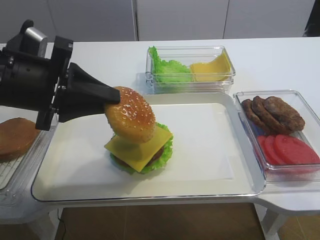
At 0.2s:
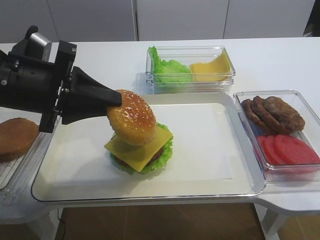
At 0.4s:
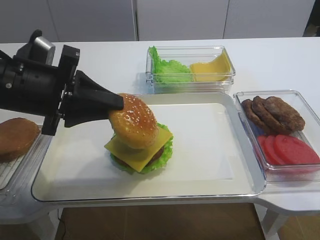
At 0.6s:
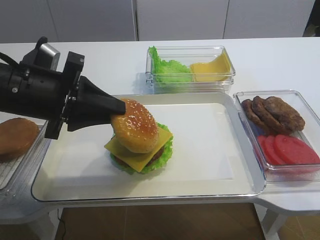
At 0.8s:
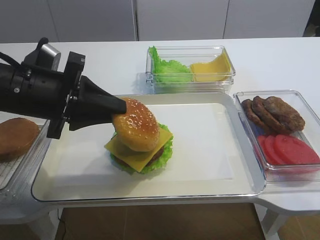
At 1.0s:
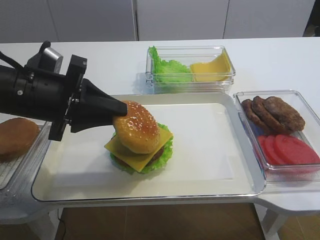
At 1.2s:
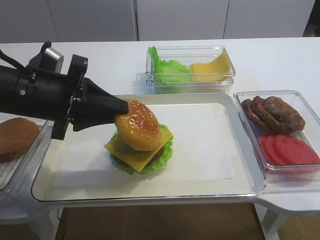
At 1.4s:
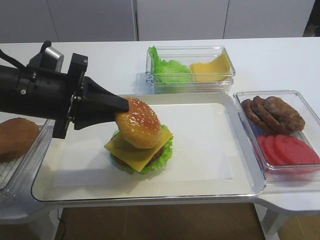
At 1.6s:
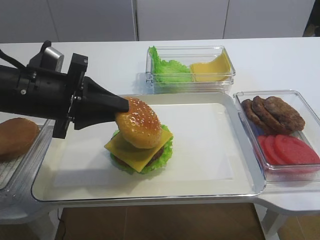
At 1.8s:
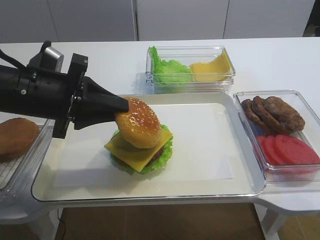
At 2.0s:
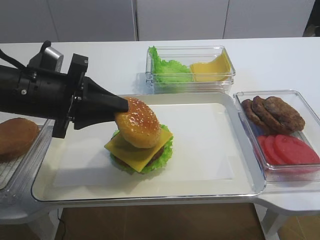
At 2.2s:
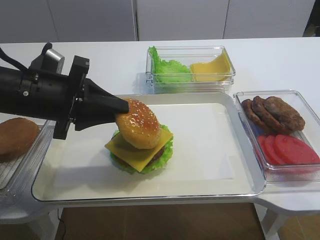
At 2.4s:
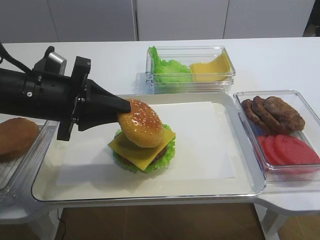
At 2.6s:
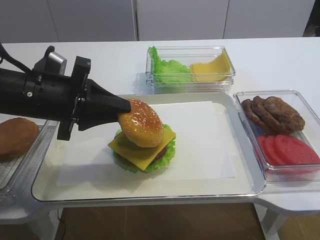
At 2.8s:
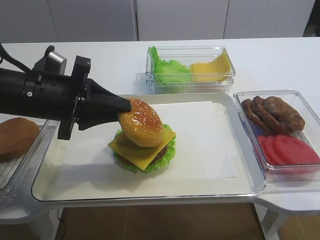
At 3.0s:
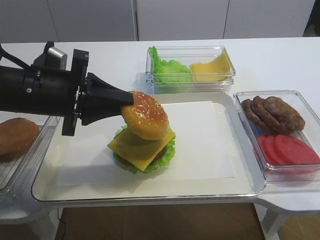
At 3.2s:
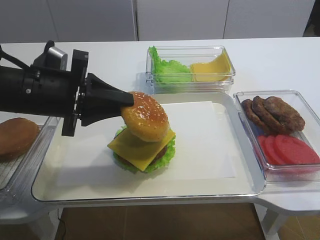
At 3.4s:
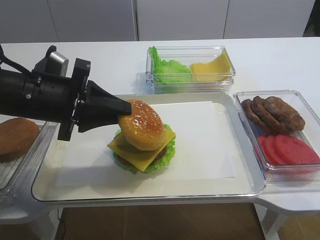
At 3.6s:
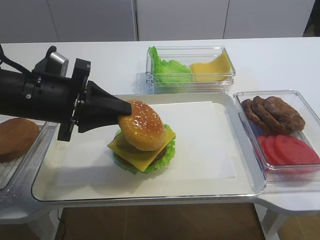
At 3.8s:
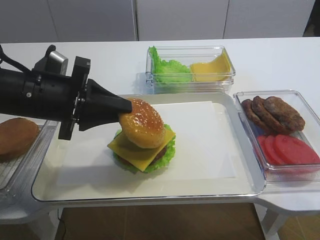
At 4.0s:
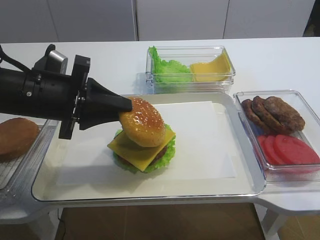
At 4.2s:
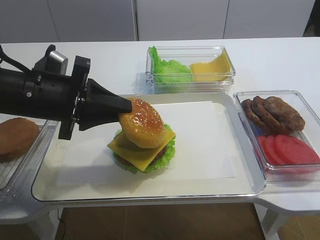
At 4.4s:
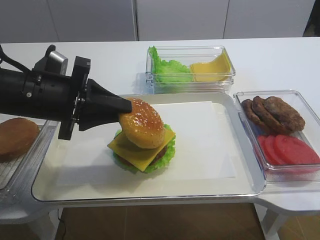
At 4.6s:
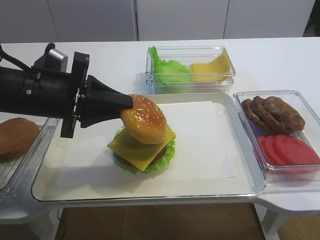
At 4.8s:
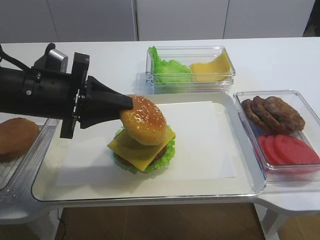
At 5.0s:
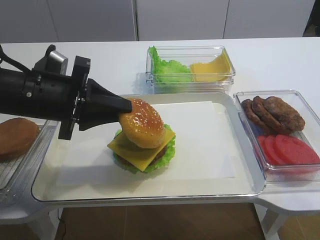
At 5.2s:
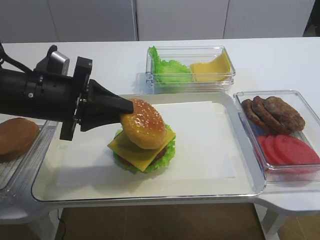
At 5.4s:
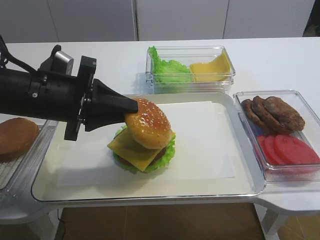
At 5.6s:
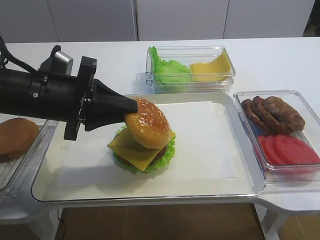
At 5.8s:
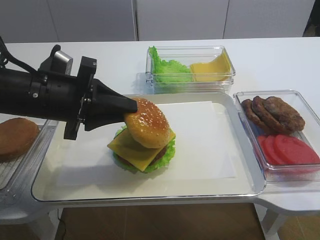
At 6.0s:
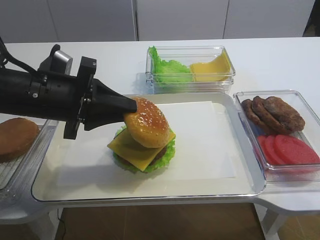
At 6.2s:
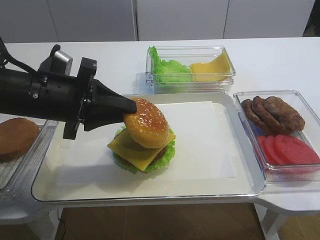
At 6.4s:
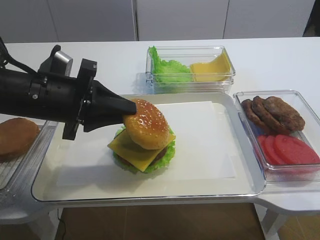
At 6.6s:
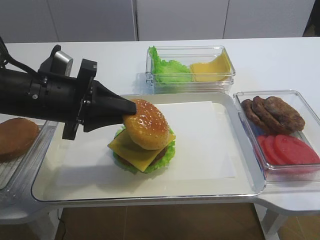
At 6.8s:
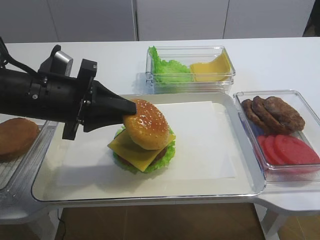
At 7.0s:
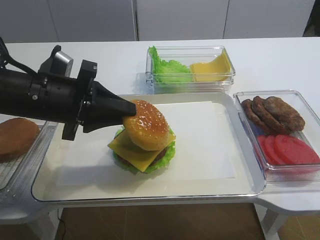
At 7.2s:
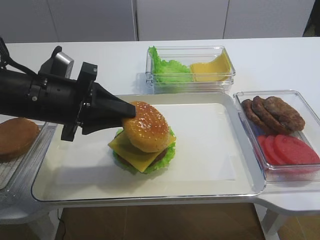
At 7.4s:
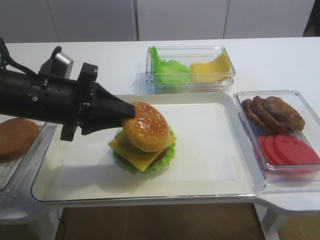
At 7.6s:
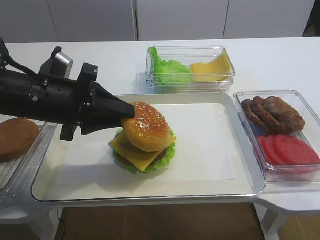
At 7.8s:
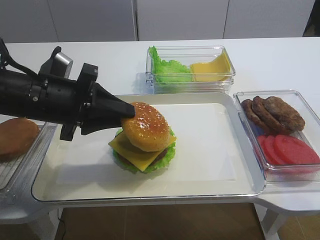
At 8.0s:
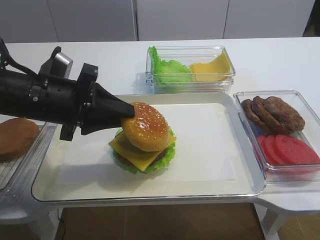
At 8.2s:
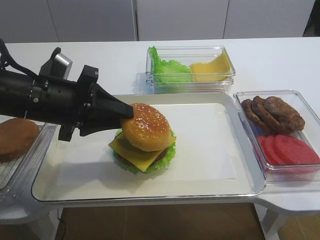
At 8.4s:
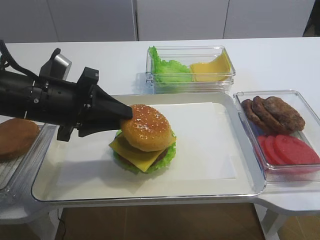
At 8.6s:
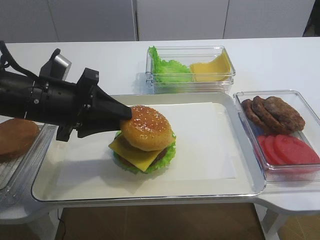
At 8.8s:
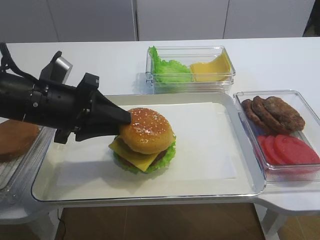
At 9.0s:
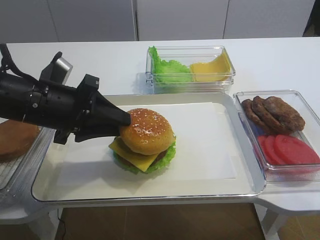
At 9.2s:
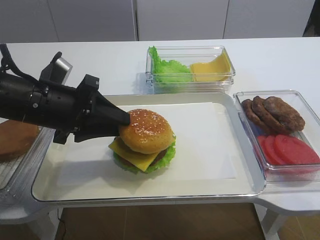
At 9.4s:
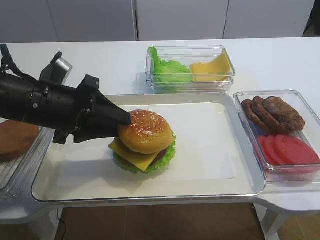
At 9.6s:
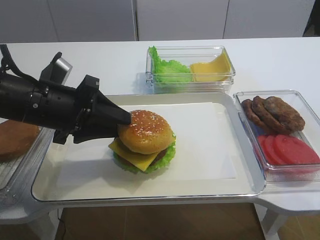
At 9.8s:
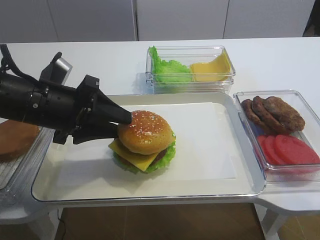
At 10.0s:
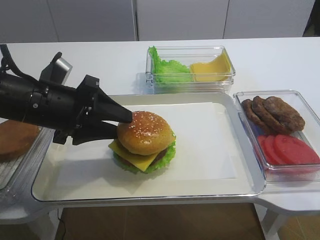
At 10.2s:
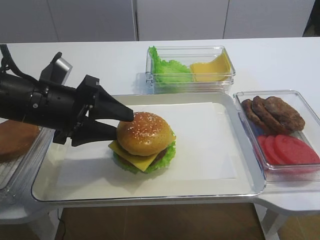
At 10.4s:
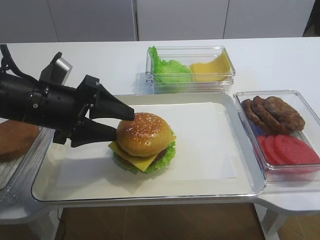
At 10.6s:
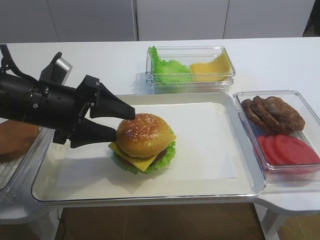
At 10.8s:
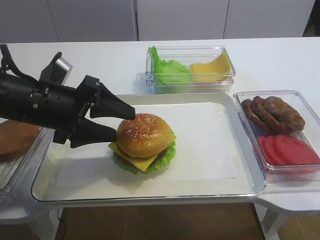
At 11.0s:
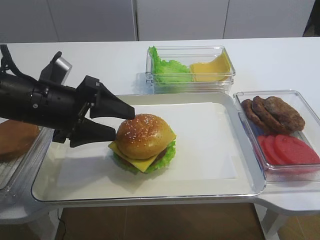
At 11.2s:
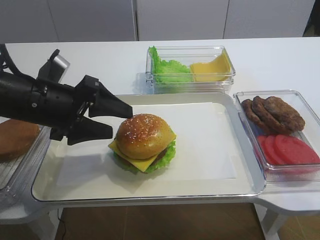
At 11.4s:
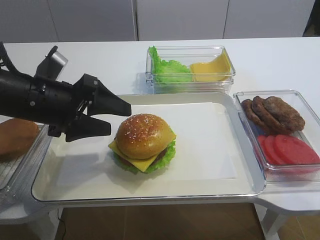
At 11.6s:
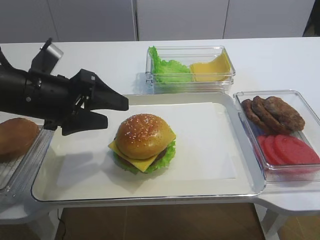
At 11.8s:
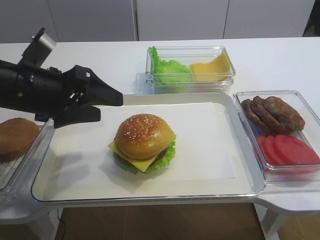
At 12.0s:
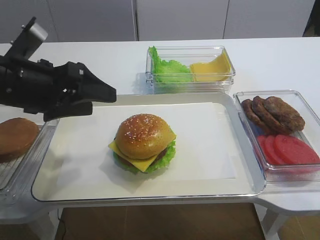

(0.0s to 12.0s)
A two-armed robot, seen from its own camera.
Step, 0.0s - 11.2s: Place the hamburger lid on the cheese slice with the left gripper.
0.0s - 3.0s: The grippers make only small movements.
3.0s - 6.0s: The two grippers keep their place.
6.0s - 7.6s: The two grippers keep their place.
7.6s - 9.0s: The grippers move only a little.
9.0s - 10.4s: The left gripper opens.

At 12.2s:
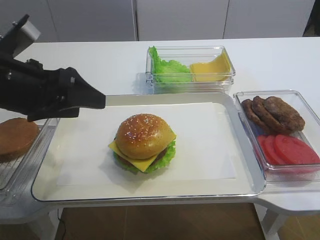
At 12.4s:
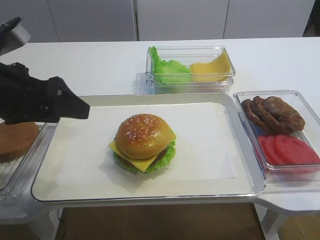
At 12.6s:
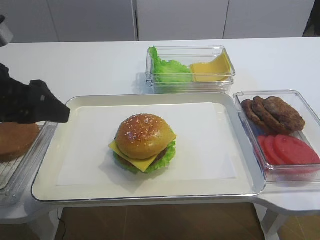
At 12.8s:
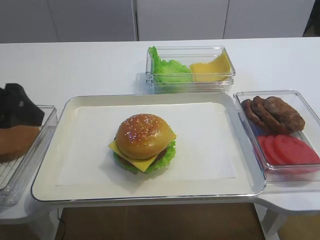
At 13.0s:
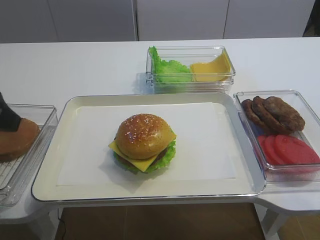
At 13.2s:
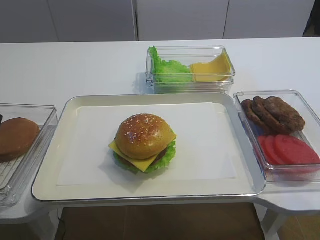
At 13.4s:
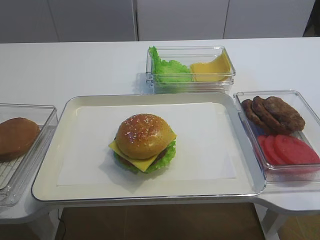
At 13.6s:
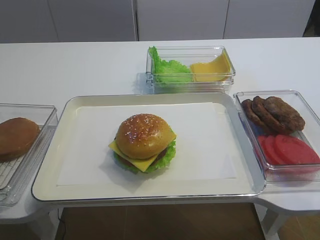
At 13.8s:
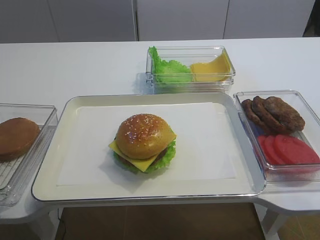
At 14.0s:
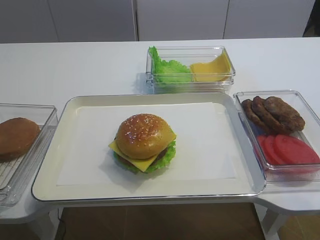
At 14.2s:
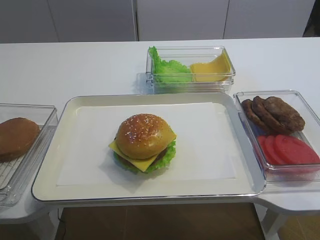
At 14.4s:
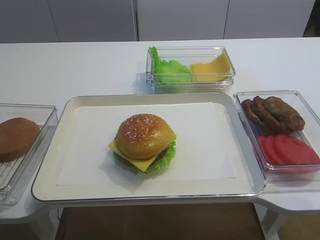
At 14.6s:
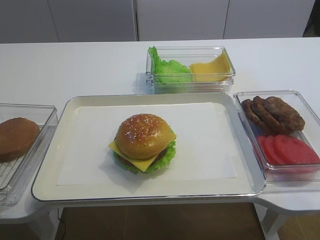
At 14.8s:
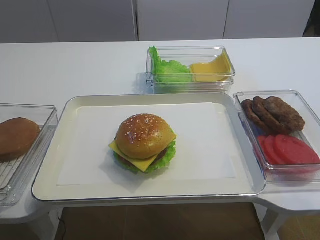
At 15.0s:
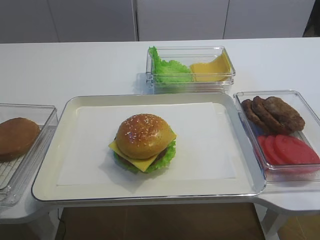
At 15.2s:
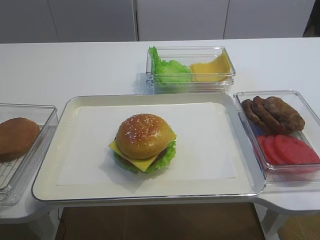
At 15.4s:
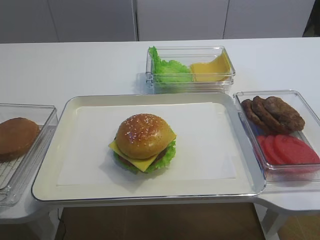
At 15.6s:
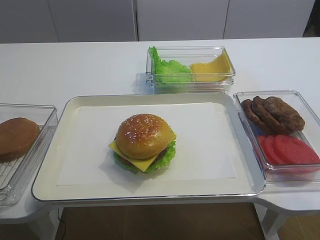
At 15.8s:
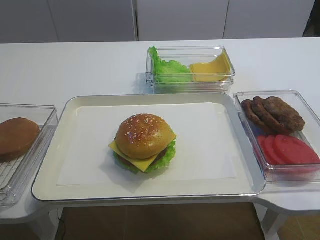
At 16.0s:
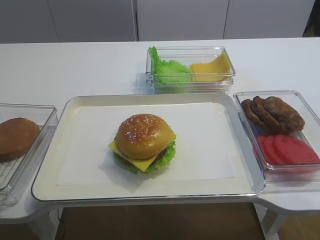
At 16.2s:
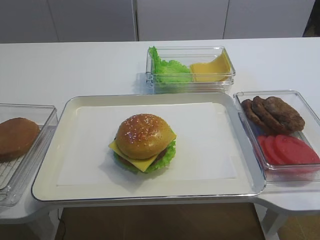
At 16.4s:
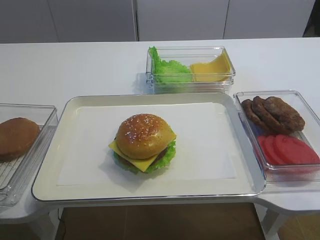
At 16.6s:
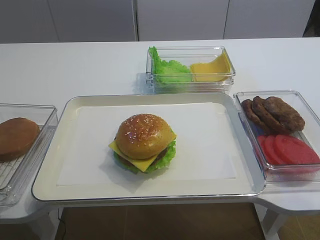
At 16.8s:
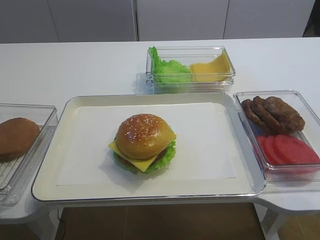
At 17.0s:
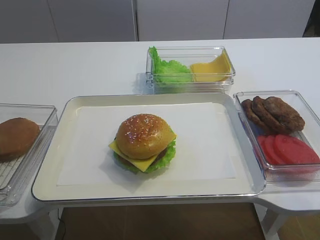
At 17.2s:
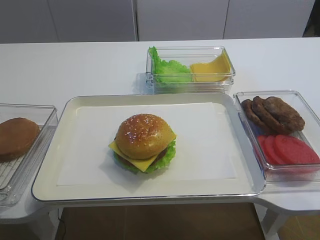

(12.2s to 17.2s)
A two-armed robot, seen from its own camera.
12.2s - 13.8s: The left gripper is displaced backward, to the left and upward by roughly 20 cm.

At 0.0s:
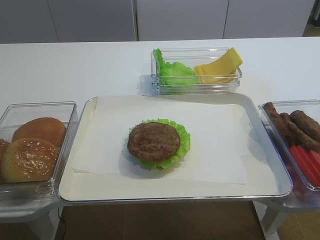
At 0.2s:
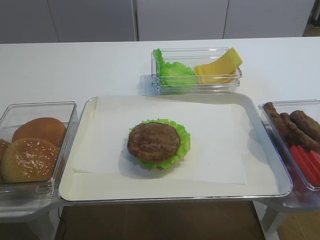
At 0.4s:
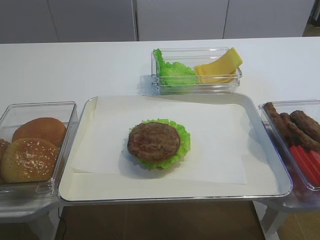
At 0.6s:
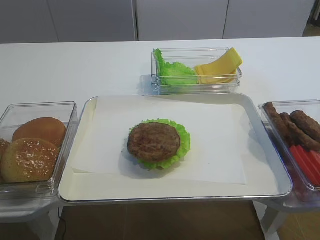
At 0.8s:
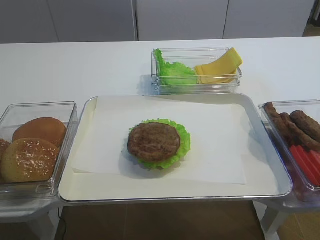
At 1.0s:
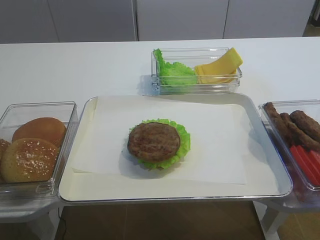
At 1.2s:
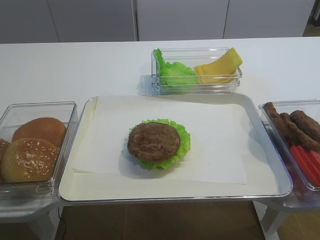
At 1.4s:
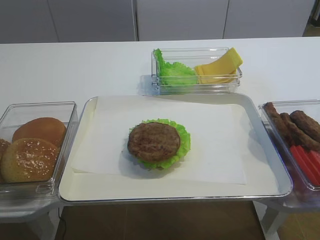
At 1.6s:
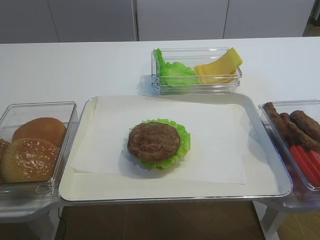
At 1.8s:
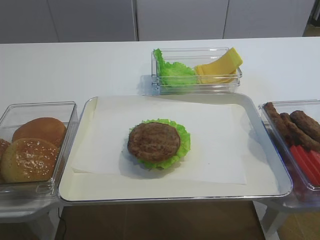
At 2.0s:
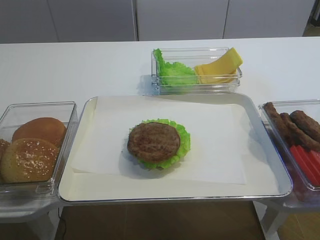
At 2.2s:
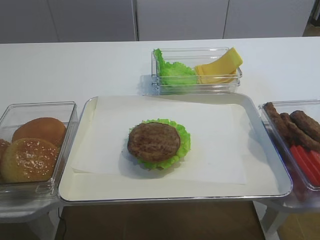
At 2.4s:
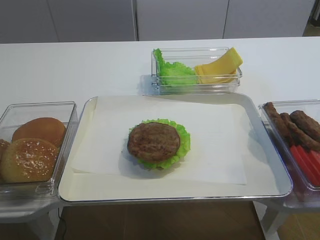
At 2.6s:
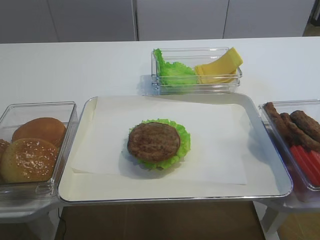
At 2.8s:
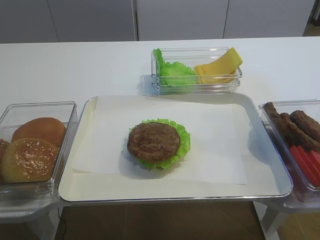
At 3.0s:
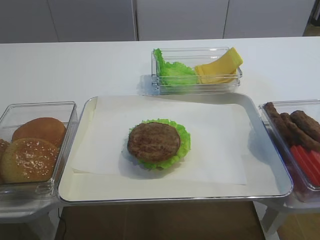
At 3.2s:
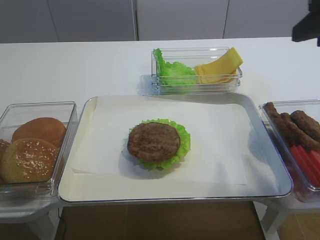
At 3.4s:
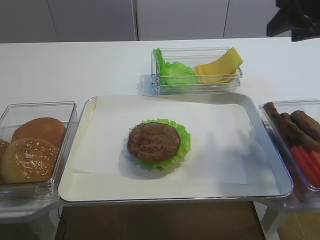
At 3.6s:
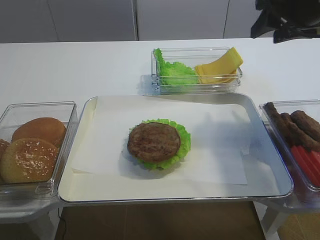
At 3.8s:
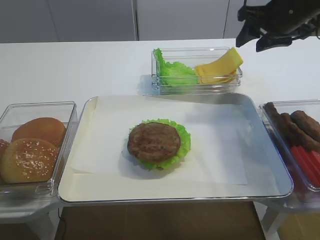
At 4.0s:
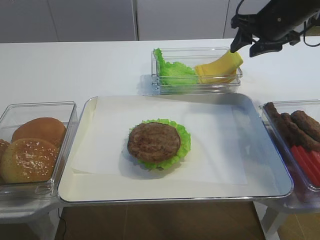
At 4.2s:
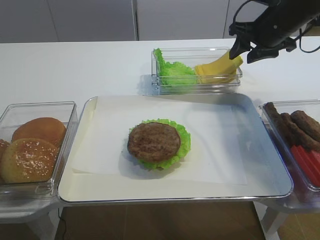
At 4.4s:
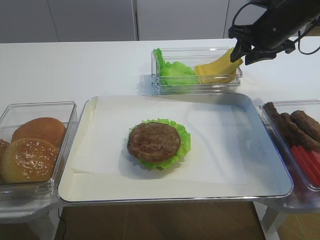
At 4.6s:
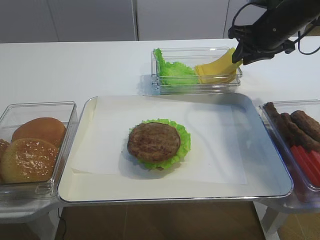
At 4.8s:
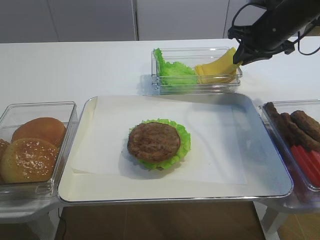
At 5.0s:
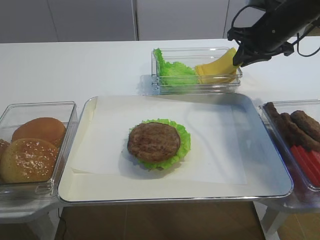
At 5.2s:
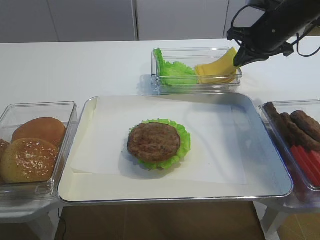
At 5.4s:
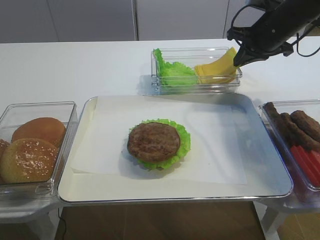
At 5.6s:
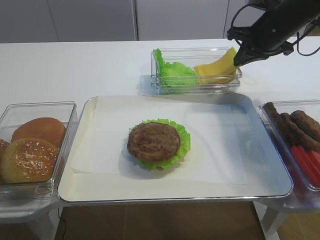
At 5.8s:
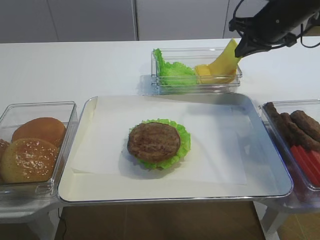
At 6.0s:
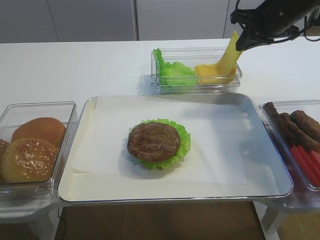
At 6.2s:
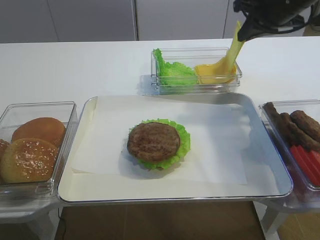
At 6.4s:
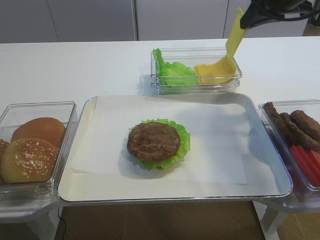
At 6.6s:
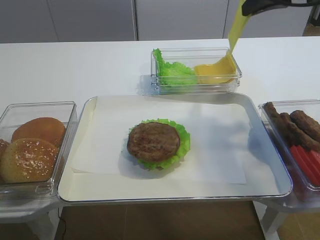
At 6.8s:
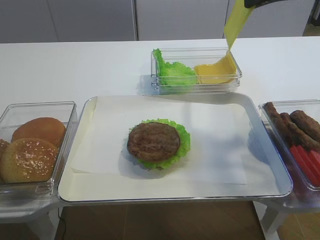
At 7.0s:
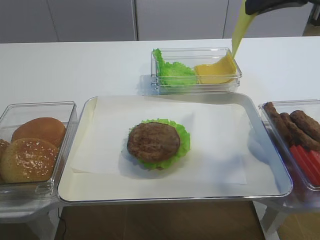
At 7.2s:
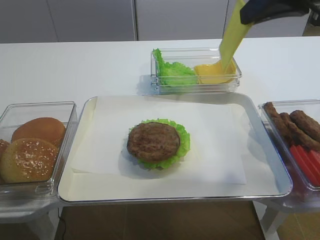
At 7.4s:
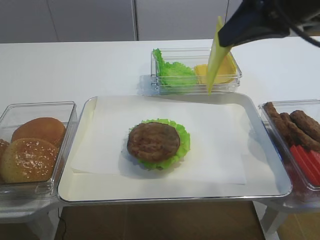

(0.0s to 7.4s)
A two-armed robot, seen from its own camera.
Step, 0.0s - 7.0s: Pick up the cheese slice with the right gripper.
1.4s - 3.0s: The right gripper travels forward and upward by about 15 cm.
3.0s - 4.4s: The right gripper heads forward, covering approximately 30 cm.
4.4s - 6.0s: The right gripper closes up.
6.0s - 7.4s: The right gripper heads backward and upward, covering roughly 20 cm.
